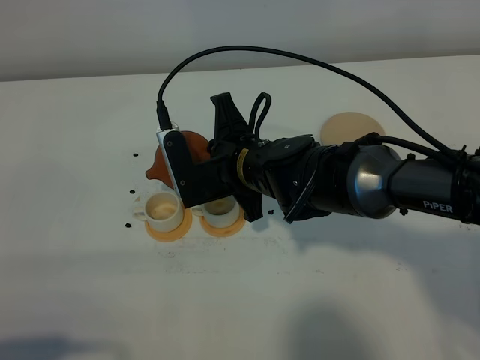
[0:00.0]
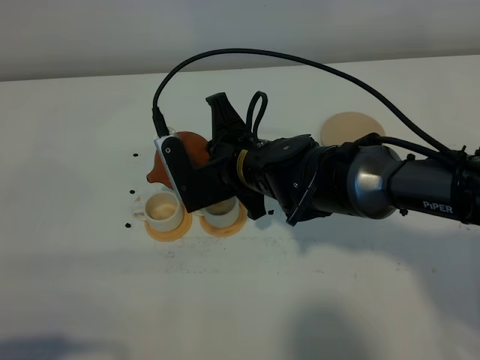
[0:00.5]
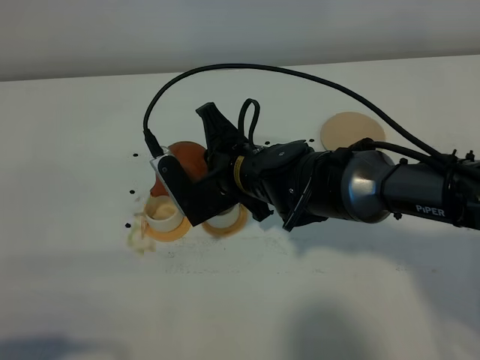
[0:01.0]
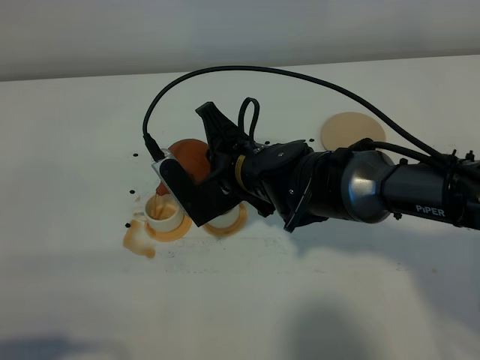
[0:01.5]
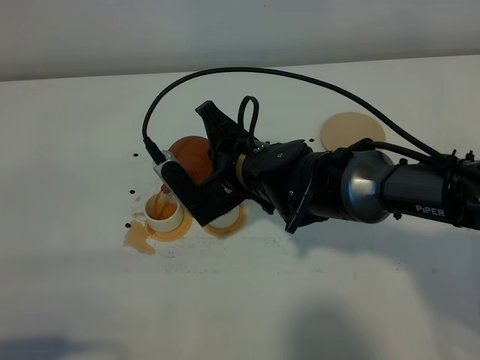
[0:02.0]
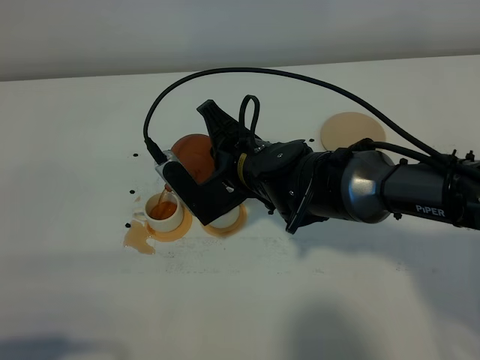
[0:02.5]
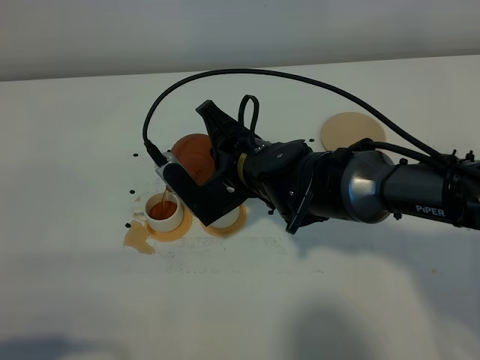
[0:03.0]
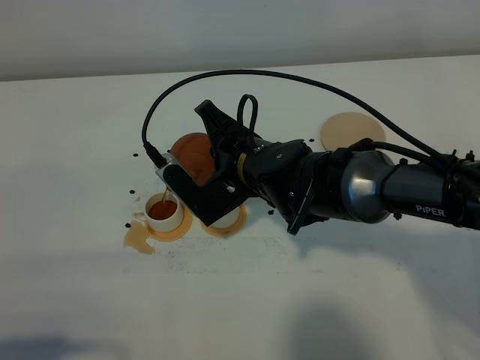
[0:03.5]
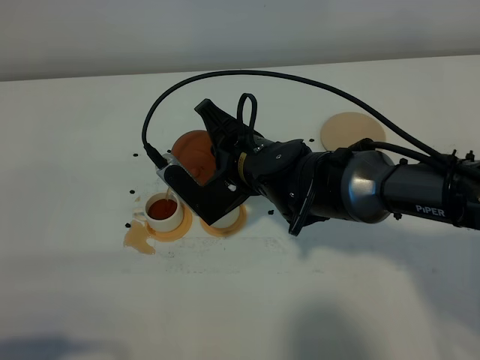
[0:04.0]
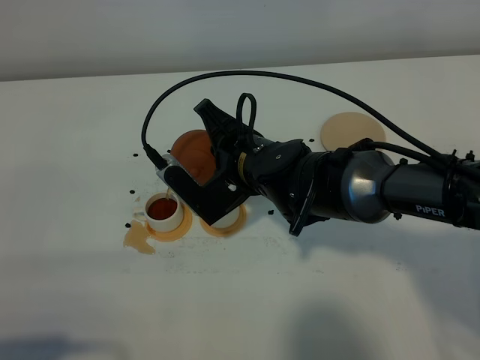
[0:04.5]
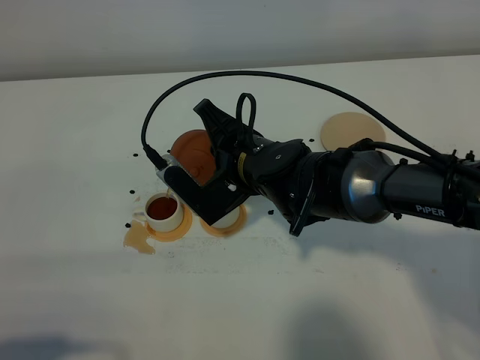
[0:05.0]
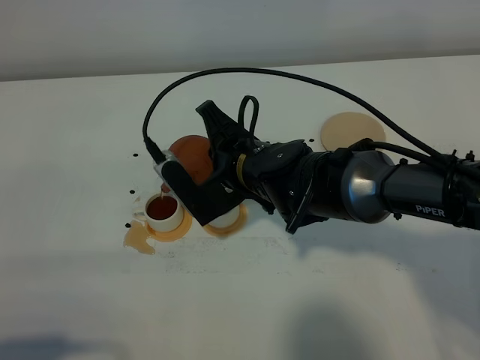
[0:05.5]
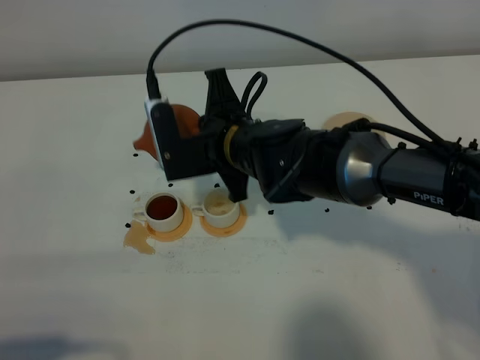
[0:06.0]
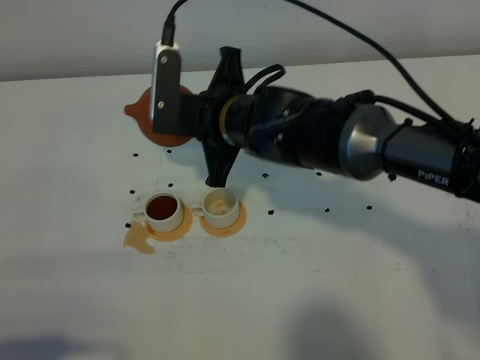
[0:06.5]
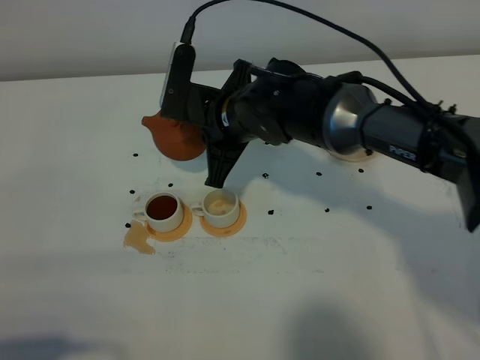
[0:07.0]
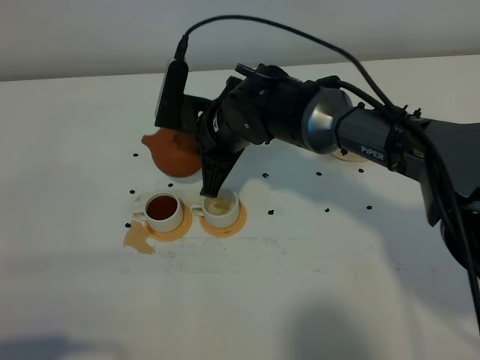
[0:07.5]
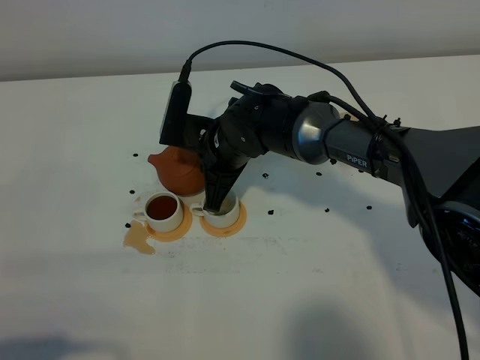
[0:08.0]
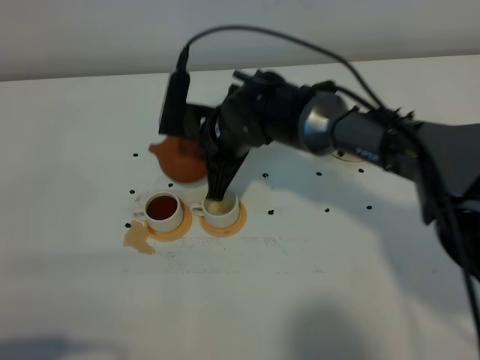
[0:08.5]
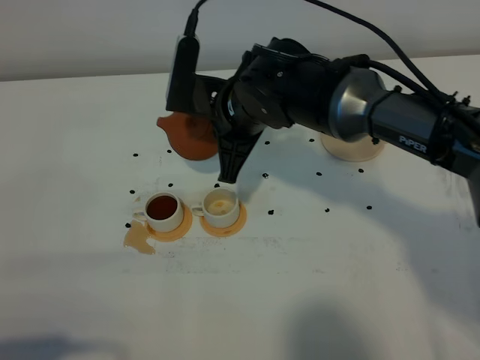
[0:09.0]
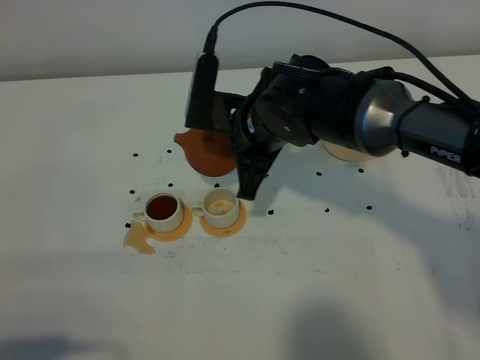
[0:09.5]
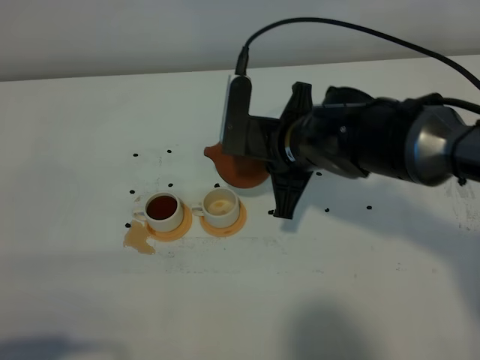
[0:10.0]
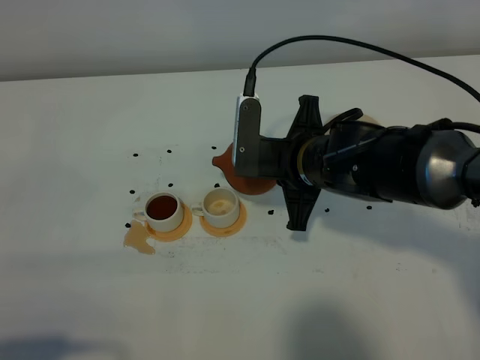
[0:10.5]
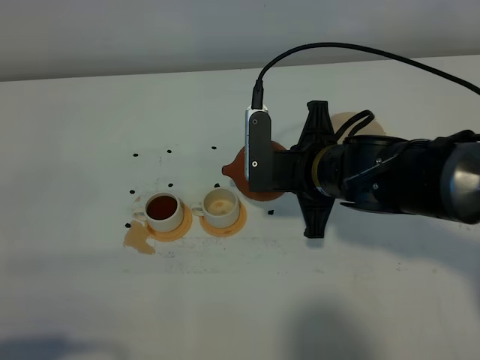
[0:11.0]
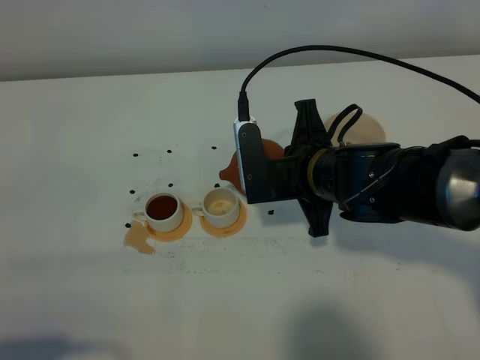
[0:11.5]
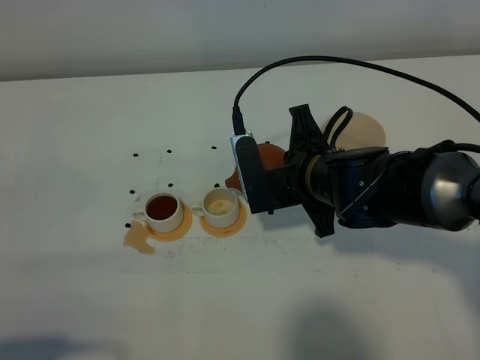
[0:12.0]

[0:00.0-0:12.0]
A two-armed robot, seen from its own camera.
Task of the whole recording: grasp the brown teapot and pour the tea into the two white teacups one by one, put the brown teapot back in its original place.
0:00.0 to 0:02.0: There are only small adjustments of the grippers.
0:02.0 to 0:04.0: The grippers make only small movements.
0:06.0 to 0:08.0: The right gripper moves downward, approximately 5 cm.
0:08.0 to 0:10.0: The right gripper is displaced to the right, backward and upward by some 10 cm.

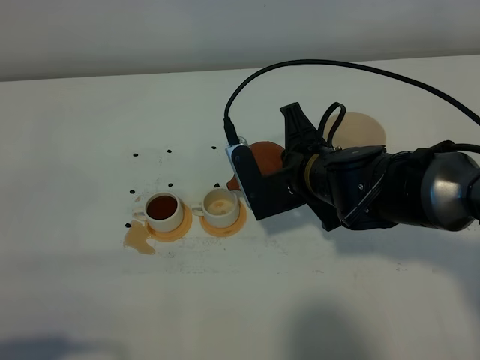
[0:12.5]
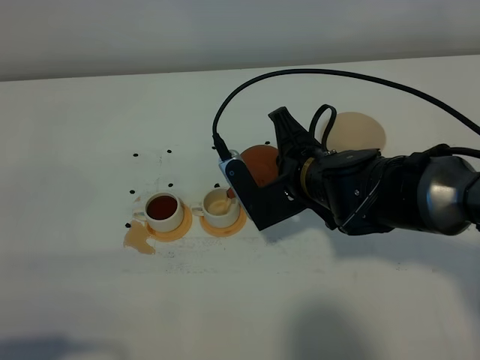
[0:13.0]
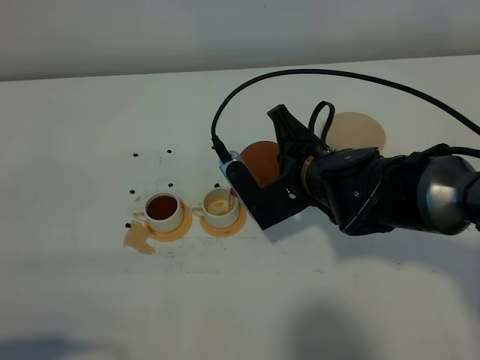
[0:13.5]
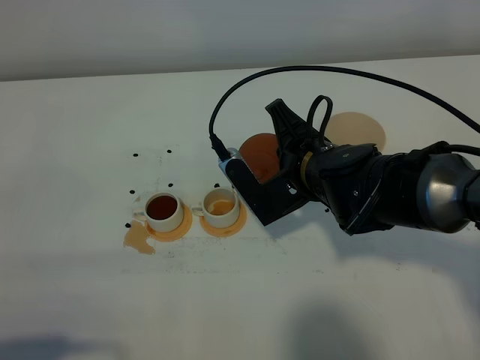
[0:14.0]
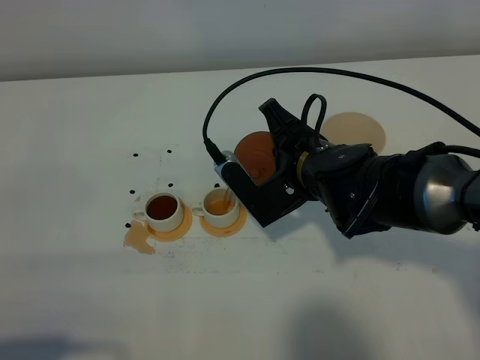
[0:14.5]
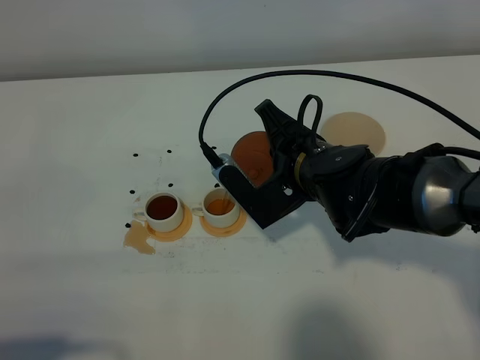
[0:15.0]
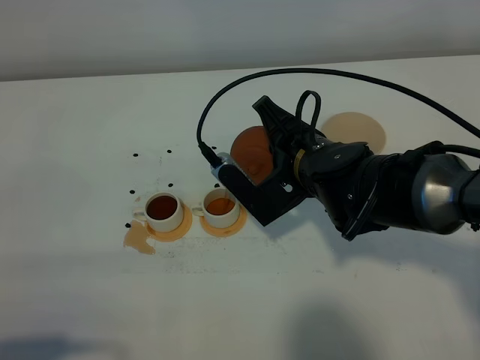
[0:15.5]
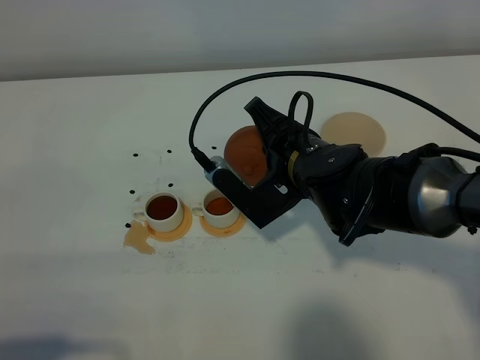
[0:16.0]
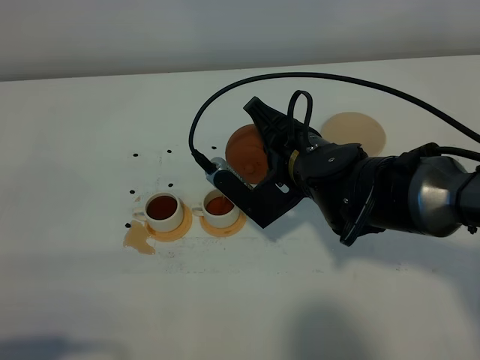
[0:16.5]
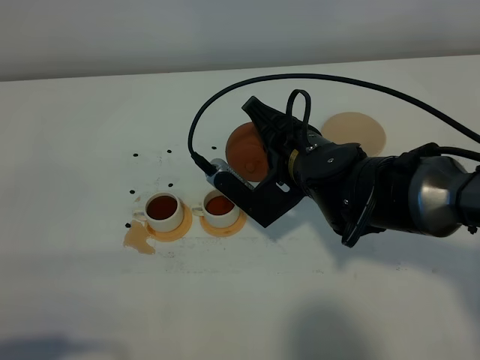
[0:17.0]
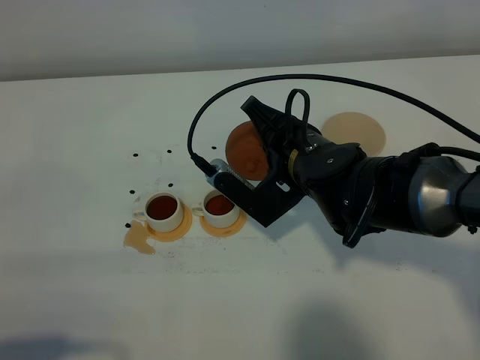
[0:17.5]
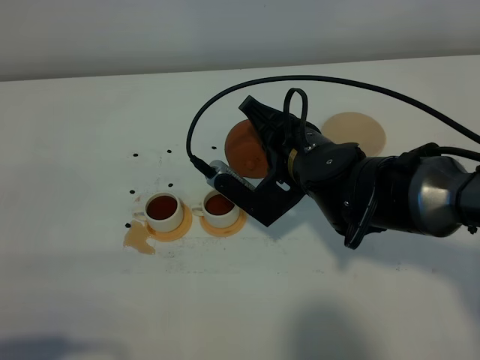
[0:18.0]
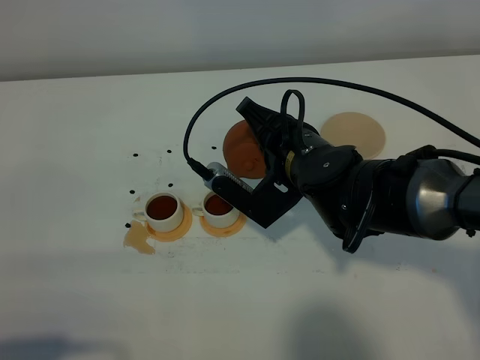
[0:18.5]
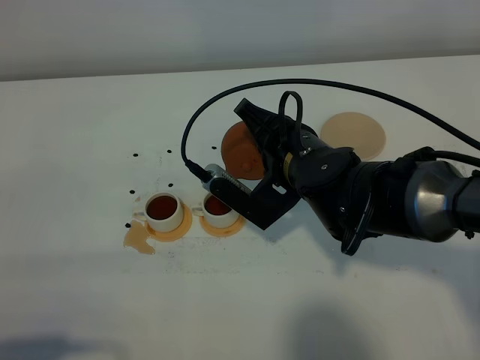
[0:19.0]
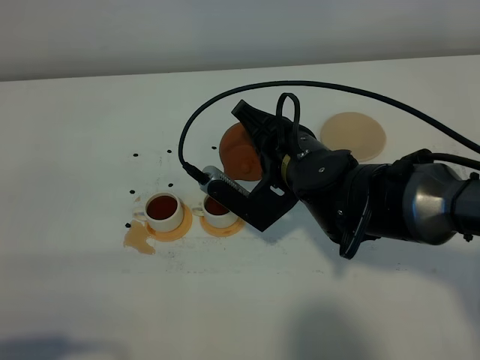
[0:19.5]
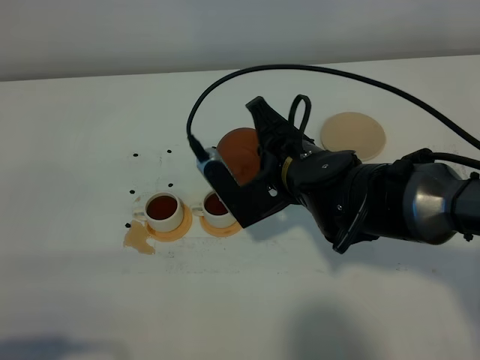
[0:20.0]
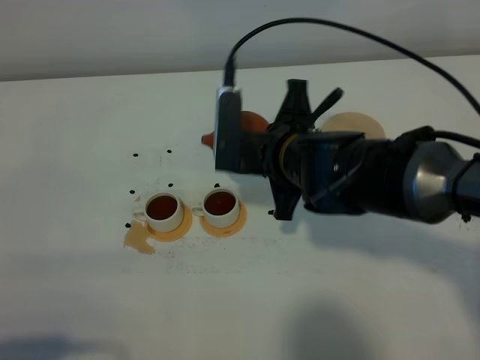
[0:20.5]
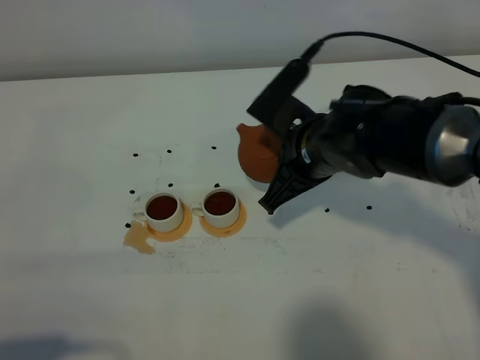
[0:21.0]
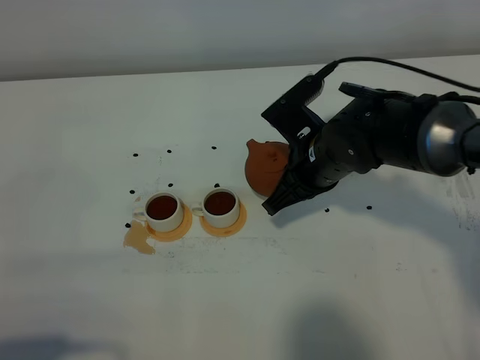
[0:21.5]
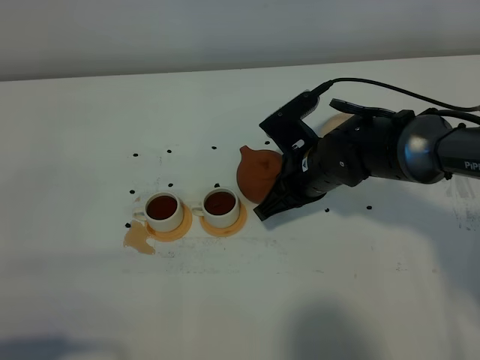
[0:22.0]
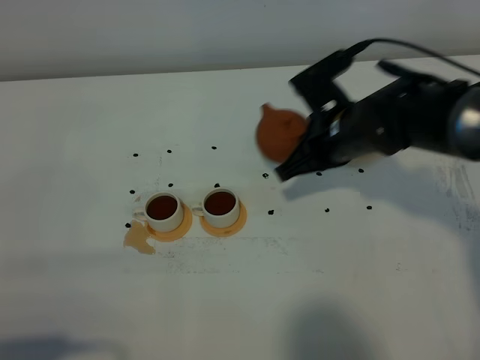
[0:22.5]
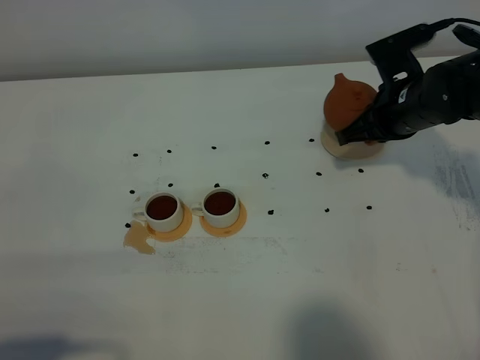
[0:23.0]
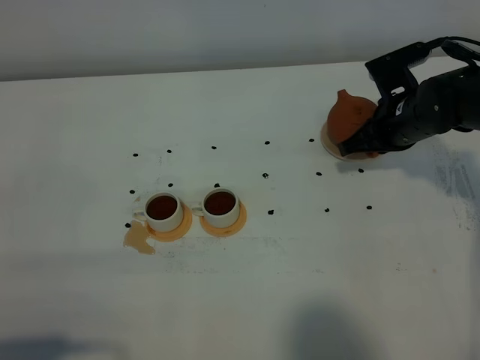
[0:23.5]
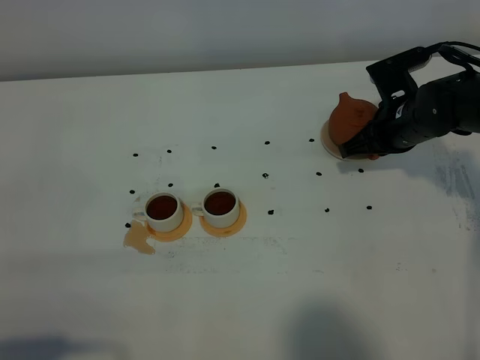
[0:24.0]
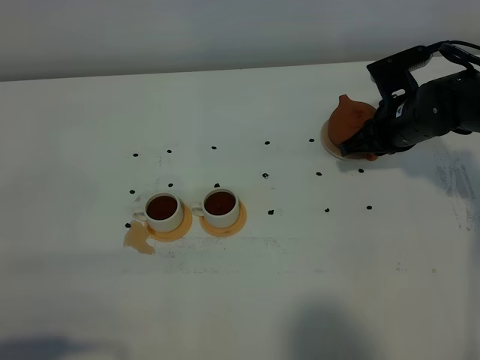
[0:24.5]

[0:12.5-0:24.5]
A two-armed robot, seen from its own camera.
Task of the whole recording: grasp the brown teapot and pour the tea into the two white teacups one by one, put the brown teapot back in its original place.
Step, 0:12.5 to 0:20.0: Pour tea into the teacup with the right gripper.
0:12.5 to 0:14.5: There are only small adjustments of the grippers.
0:14.5 to 0:18.5: The grippers stay close to where they were, moving slightly.
0:20.5 to 0:22.5: The right gripper goes roughly 10 cm to the right and forward.
0:22.5 to 0:24.5: The right gripper moves to the right, some 10 cm.

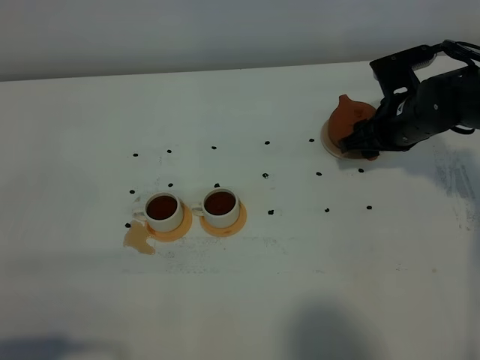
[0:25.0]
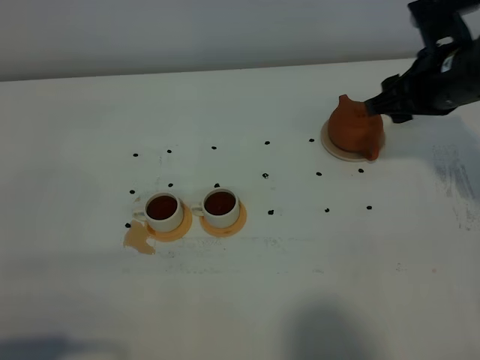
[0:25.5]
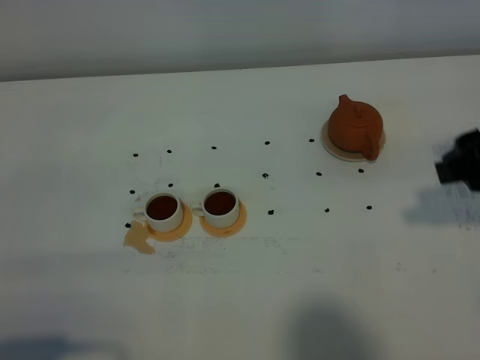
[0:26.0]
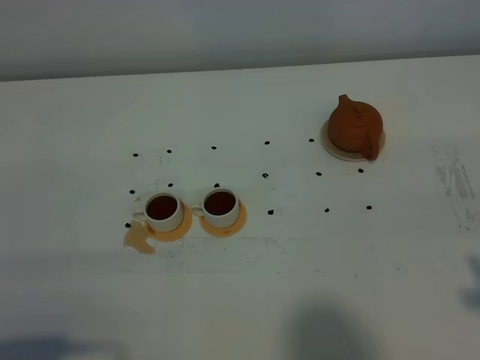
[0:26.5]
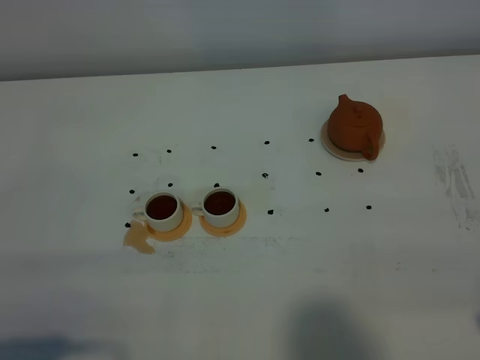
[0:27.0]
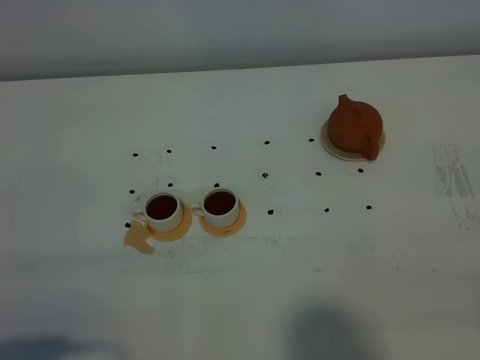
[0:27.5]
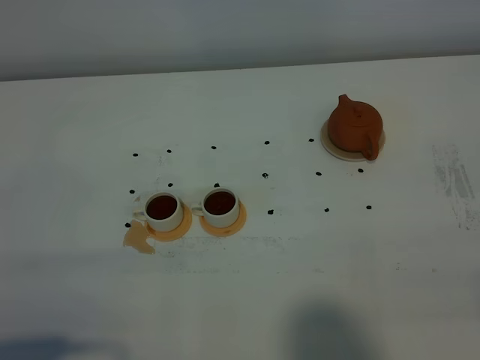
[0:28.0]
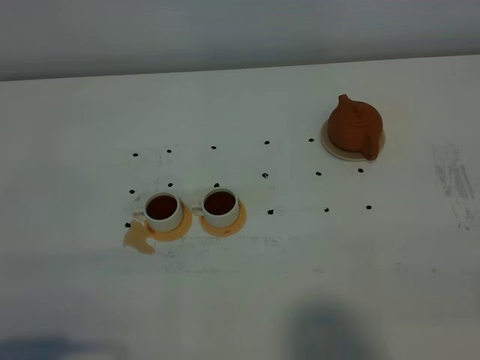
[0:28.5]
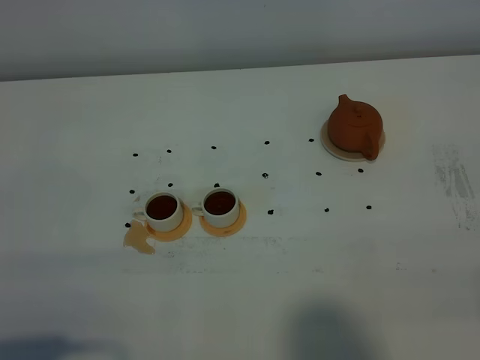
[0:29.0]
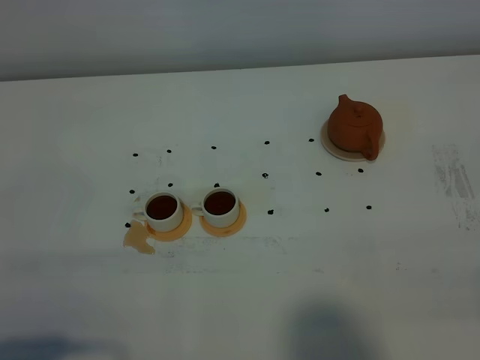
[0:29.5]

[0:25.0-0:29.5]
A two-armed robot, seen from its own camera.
Task of the whole recording: grasp the brown teapot and pour the tea into the two white teacups one by one, put the brown teapot back in its original place.
0:25.0 to 0:27.0: The right gripper is displaced backward by roughly 40 cm.
